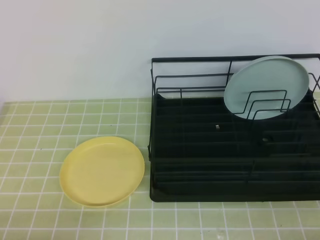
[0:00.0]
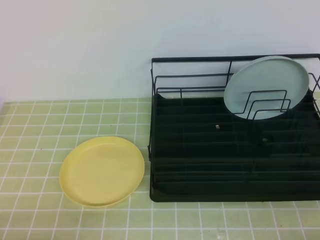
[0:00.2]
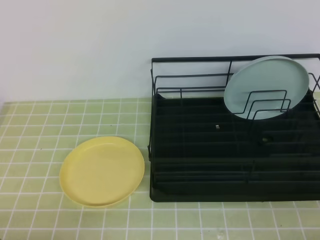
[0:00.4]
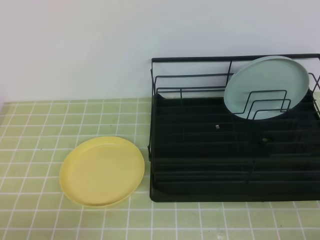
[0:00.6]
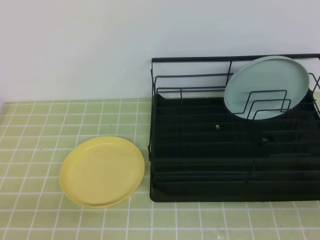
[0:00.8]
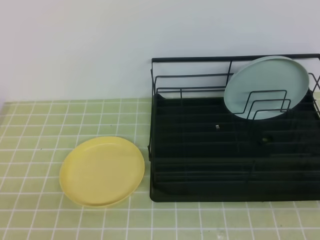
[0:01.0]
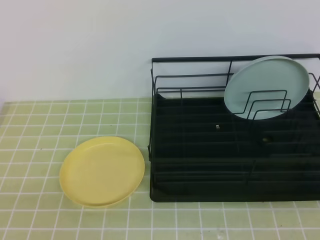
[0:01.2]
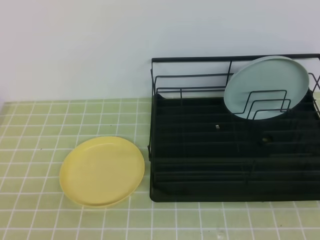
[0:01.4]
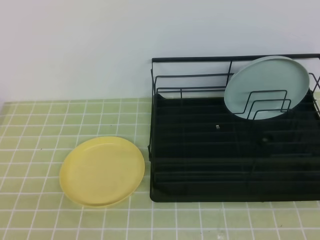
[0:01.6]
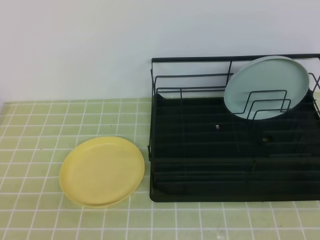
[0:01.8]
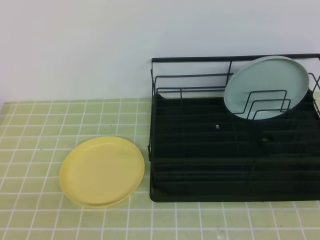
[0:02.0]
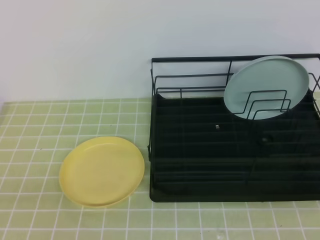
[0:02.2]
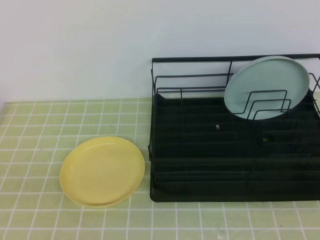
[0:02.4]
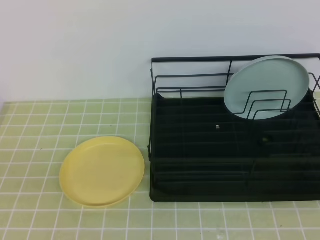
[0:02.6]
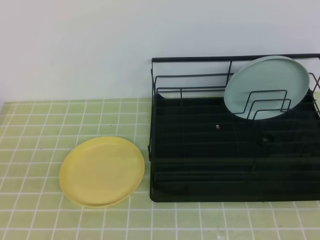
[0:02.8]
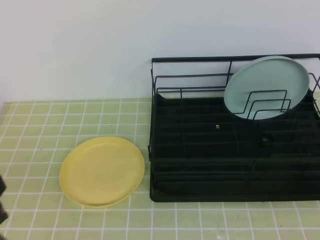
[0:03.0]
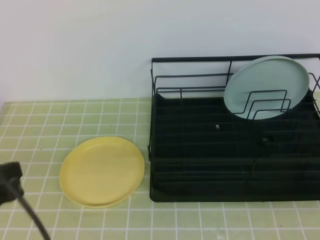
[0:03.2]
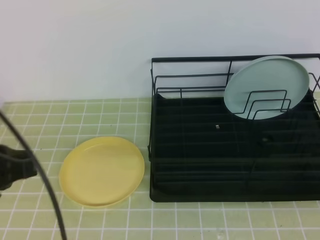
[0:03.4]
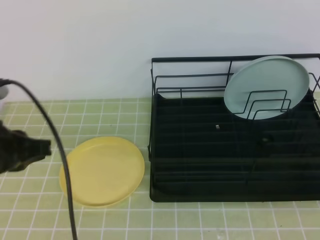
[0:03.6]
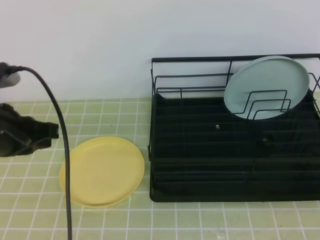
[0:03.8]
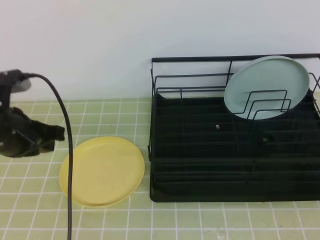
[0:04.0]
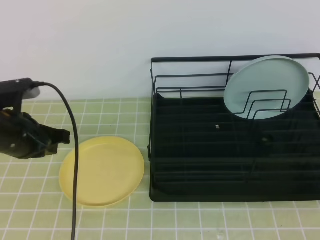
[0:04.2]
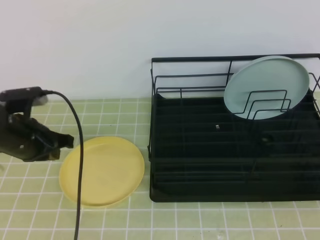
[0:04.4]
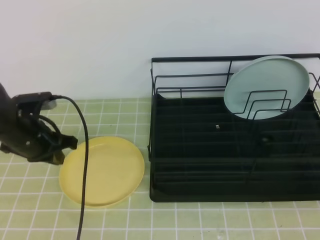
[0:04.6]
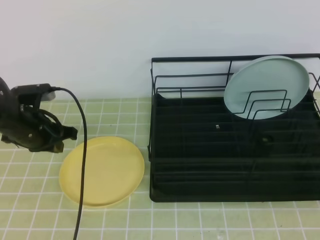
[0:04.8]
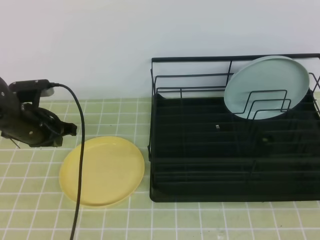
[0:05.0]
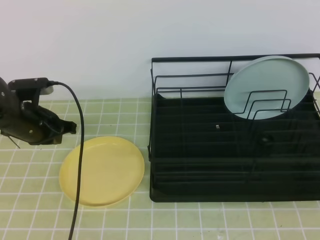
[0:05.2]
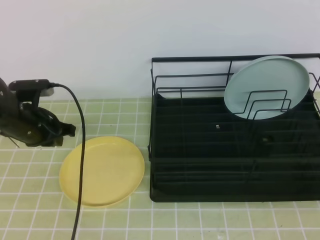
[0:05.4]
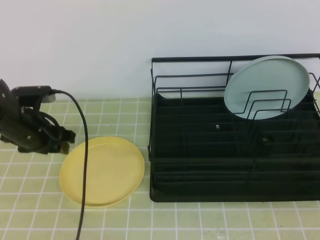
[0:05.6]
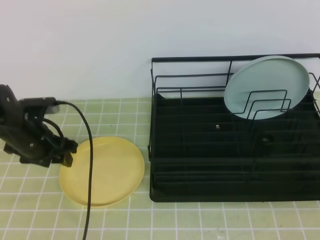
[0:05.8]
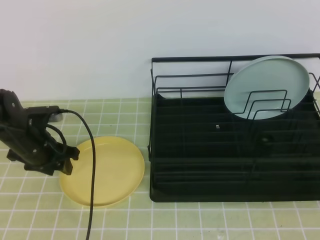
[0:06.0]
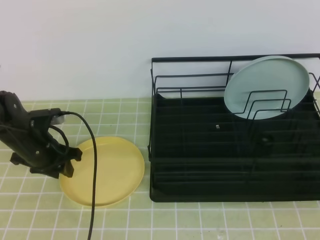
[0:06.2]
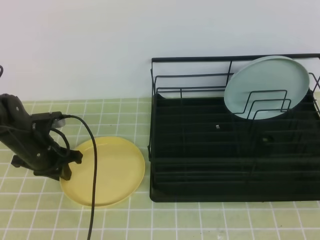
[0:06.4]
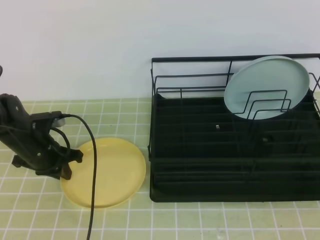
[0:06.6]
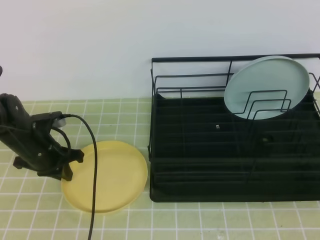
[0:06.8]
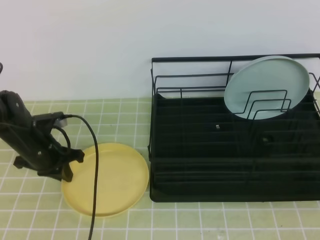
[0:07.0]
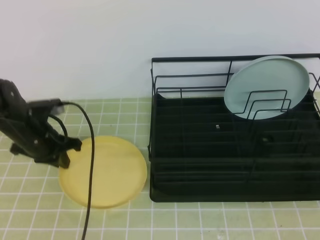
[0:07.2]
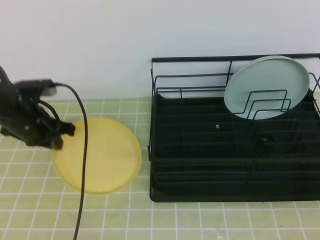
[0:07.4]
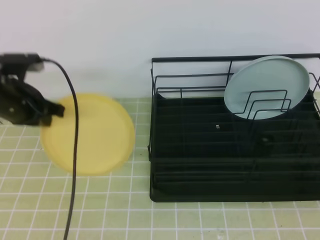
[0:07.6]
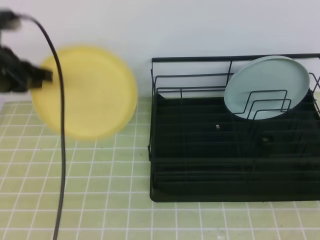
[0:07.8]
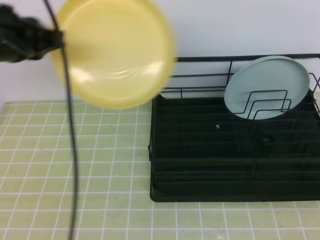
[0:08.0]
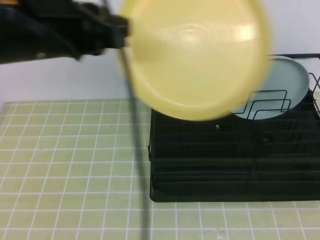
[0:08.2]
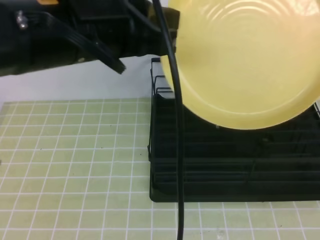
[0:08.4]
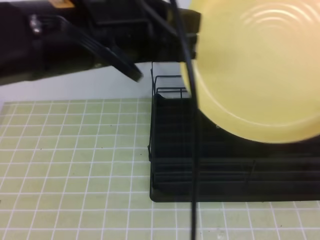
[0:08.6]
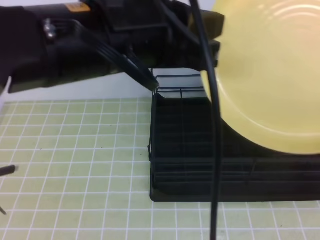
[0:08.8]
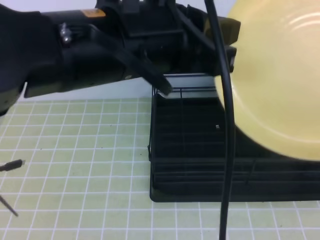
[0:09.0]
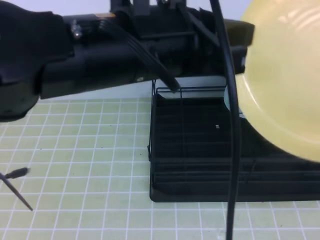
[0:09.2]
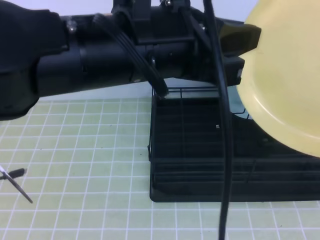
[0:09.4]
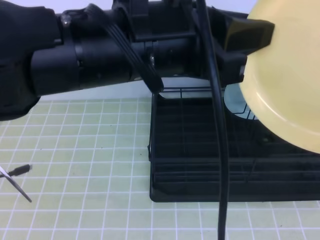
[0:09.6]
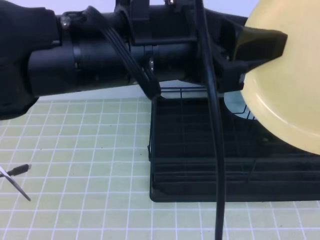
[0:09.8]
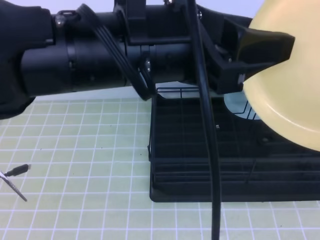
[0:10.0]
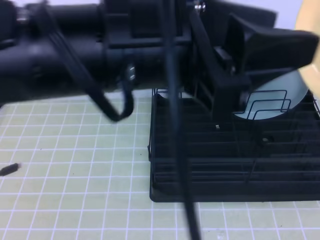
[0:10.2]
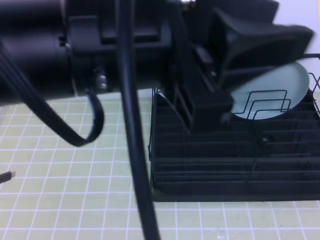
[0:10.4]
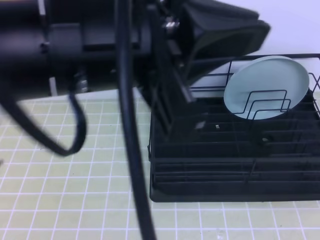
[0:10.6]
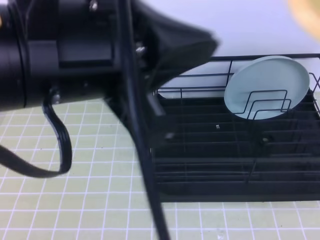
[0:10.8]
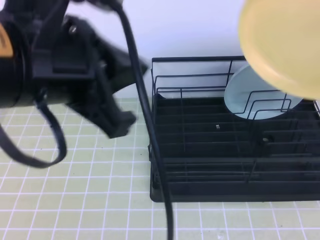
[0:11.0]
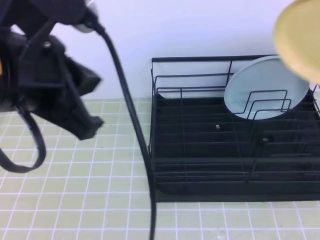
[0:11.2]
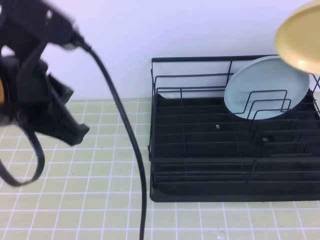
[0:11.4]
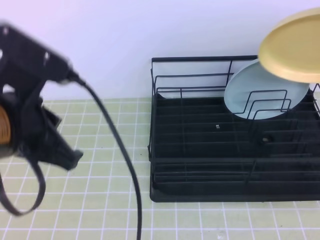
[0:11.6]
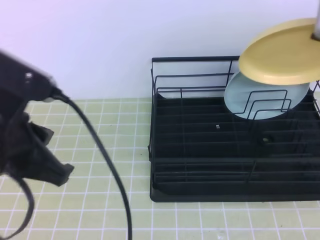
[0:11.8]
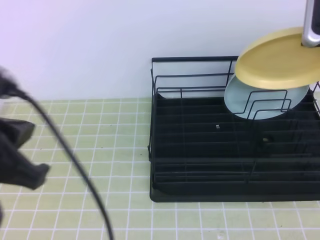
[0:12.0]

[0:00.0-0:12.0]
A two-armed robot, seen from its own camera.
Step, 0:00.0 to 0:05.8: Left grab the yellow plate.
0:03.0 to 0:04.4: The left gripper moves forward, about 25 cm.
0:04.4 to 0:06.0: The left gripper travels downward and forward by roughly 10 cm, and opens up.
0:06.0 to 0:07.6: The left gripper is displaced upward by approximately 10 cm, and closes.
0:07.6 to 0:09.0: The right gripper moves upward, about 10 cm, and opens up. The left gripper goes some 30 cm to the right, upward and backward.
0:09.0 to 0:10.4: The right gripper closes its fingers. Meanwhile the left gripper heads backward, covering some 5 cm, and opens up.
0:10.4 to 0:12.0: The left gripper travels to the left and downward by about 15 cm, and closes. The right gripper moves forward, roughly 25 cm.

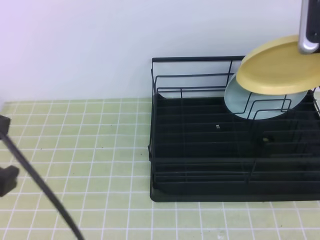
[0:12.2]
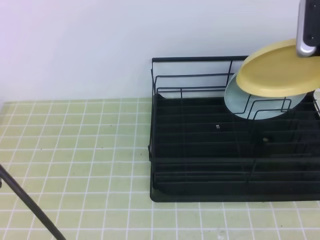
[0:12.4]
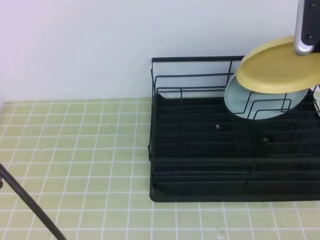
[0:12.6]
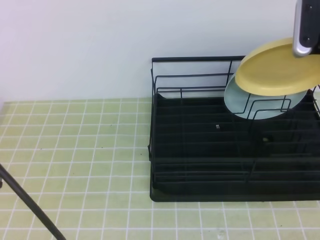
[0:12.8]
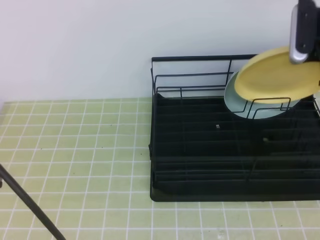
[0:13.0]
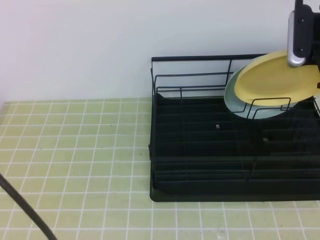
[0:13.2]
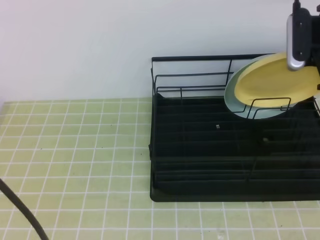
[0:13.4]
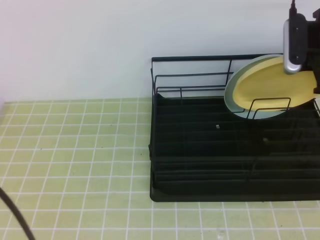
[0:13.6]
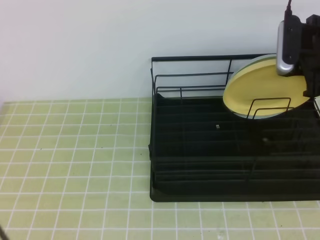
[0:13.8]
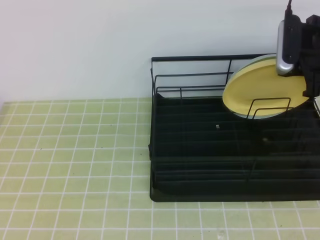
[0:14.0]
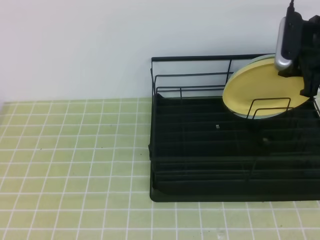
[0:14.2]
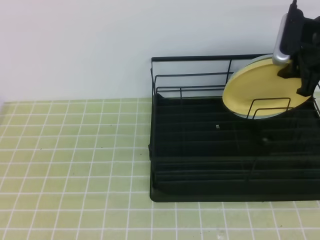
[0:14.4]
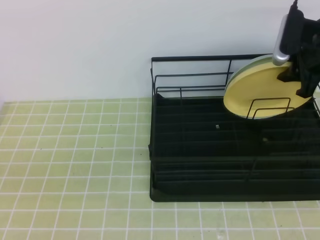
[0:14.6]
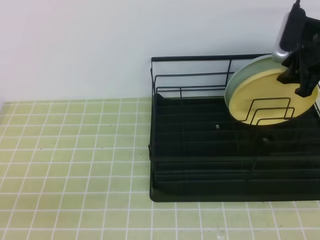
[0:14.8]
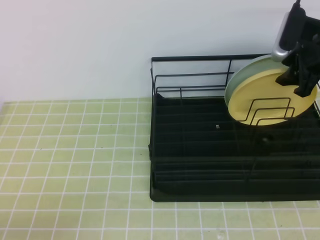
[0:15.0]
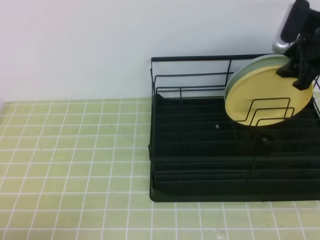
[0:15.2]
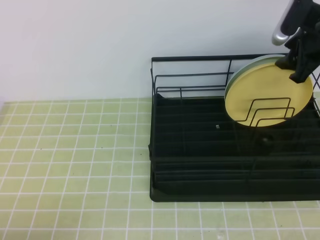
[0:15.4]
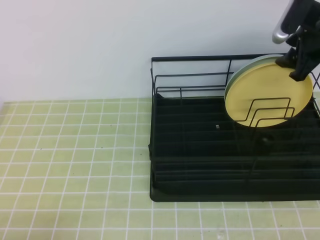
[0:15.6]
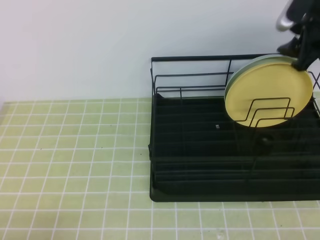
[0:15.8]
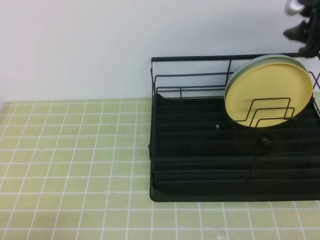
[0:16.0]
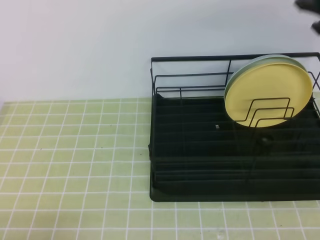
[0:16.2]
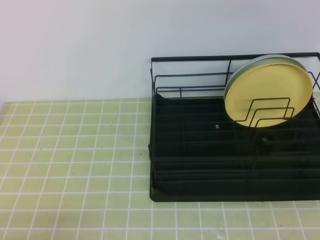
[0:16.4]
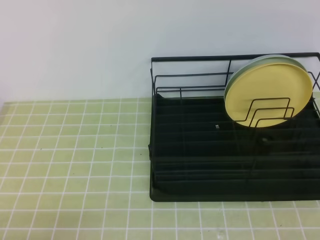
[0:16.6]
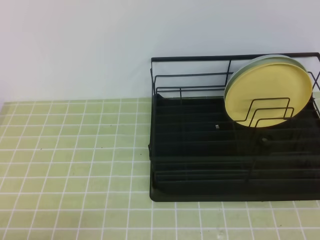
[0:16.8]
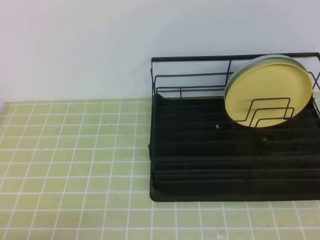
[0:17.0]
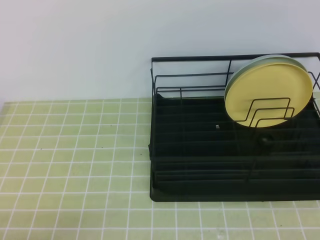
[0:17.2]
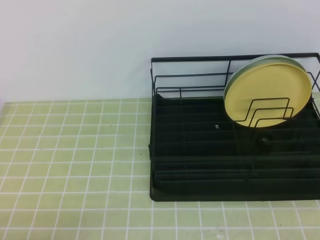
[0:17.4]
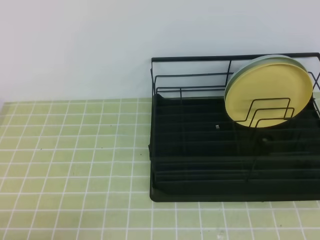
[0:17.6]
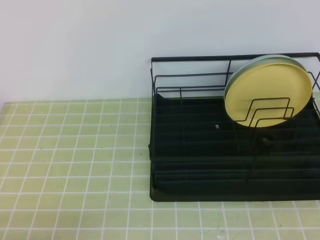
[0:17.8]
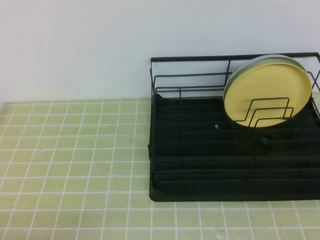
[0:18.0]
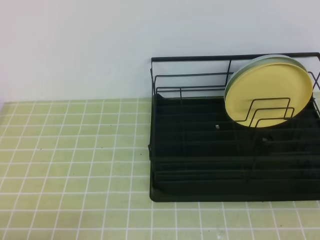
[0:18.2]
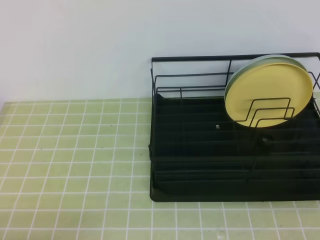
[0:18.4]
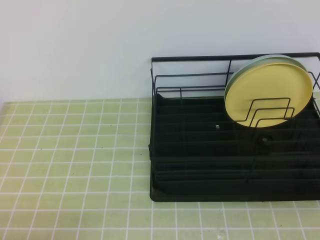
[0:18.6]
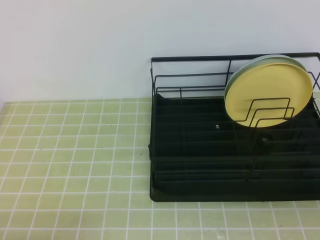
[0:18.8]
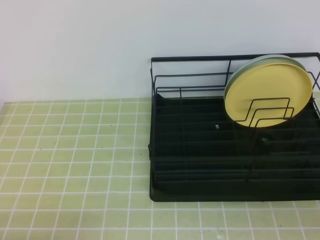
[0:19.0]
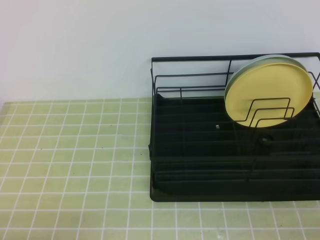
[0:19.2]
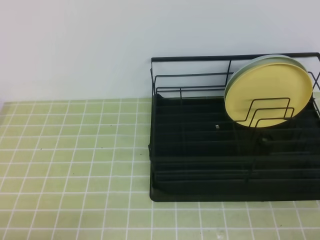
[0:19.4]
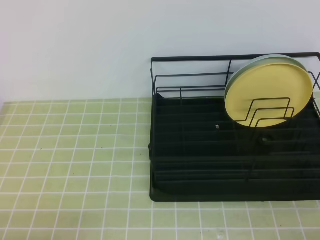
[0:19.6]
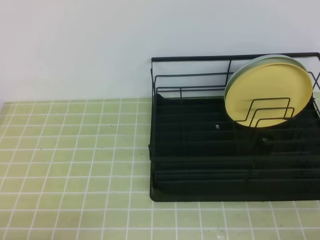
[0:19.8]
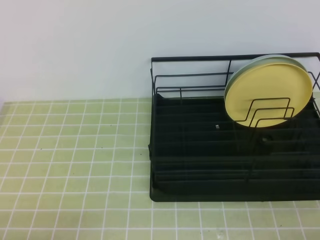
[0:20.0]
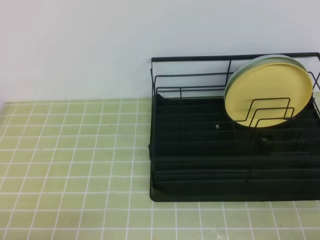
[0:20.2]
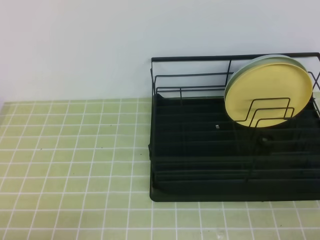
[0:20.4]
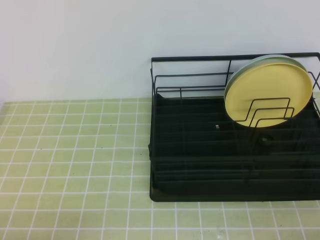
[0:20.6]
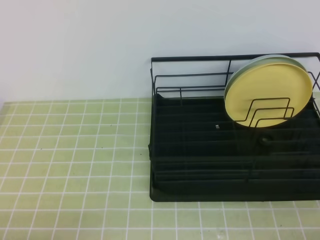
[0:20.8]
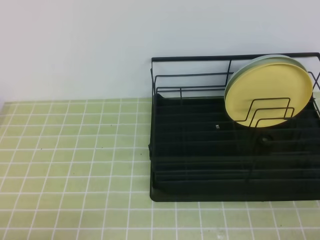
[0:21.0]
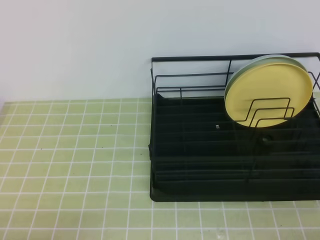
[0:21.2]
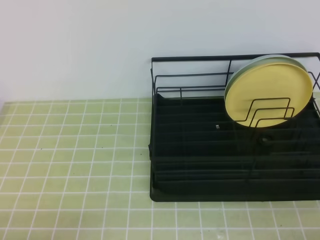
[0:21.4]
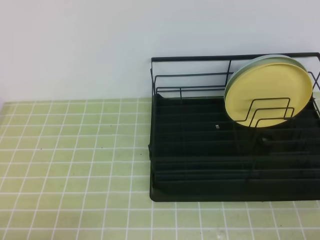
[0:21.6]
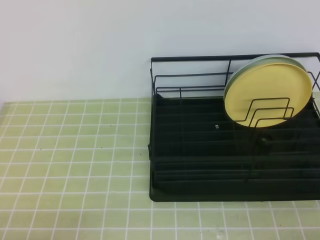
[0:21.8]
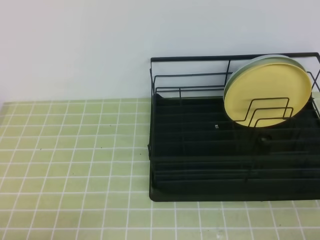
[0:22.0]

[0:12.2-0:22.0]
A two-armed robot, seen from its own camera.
0:12.2 to 0:13.6: The left gripper moves approximately 5 cm. The right gripper shifts roughly 5 cm downward.
0:13.6 to 0:15.0: The left gripper moves downward, roughly 20 cm. Meanwhile the right gripper opens its fingers.
0:15.0 to 0:16.4: The right gripper is displaced upward and backward by some 20 cm, and closes its fingers.
0:17.8 to 0:19.2: The right gripper heads downward, covering some 25 cm.
0:20.6 to 0:22.0: Both grippers stay about where they are.
